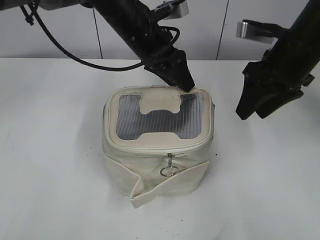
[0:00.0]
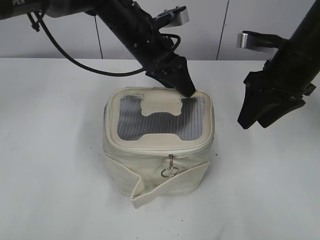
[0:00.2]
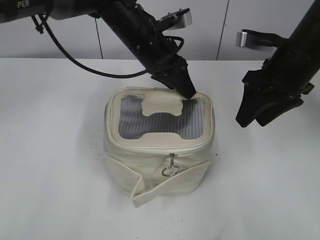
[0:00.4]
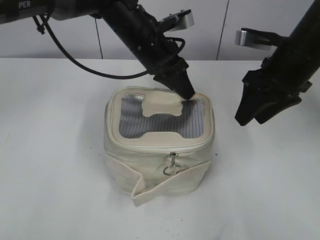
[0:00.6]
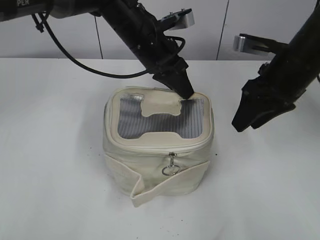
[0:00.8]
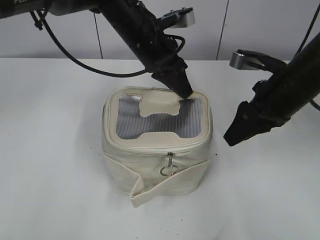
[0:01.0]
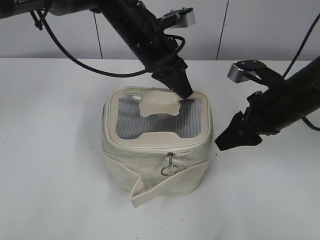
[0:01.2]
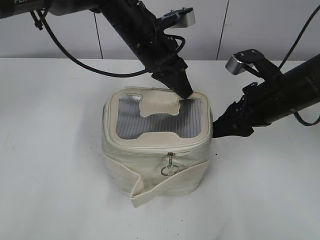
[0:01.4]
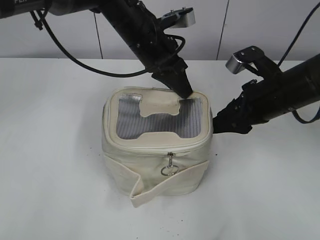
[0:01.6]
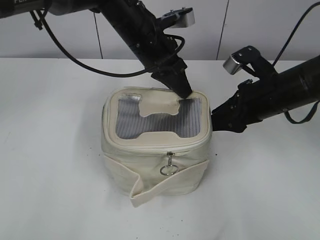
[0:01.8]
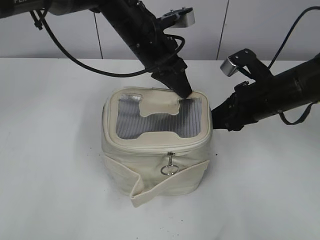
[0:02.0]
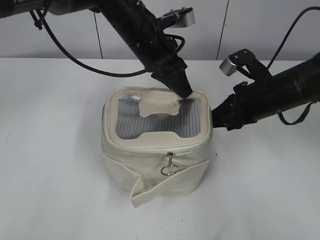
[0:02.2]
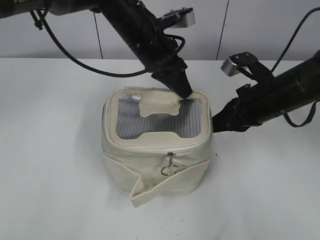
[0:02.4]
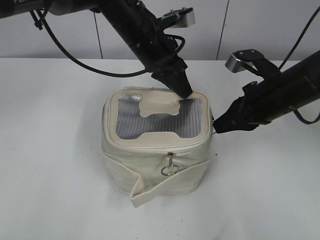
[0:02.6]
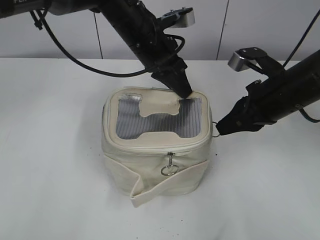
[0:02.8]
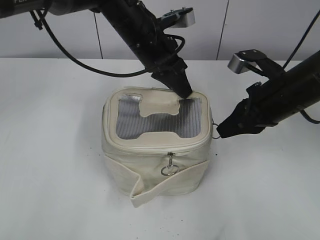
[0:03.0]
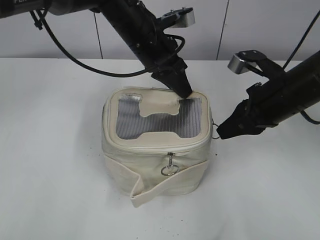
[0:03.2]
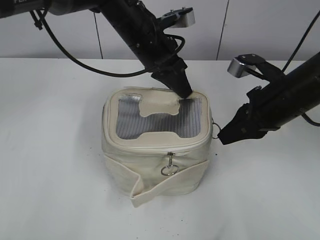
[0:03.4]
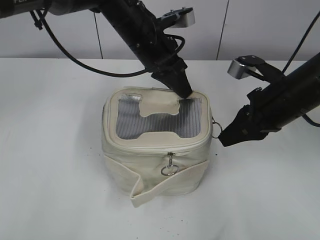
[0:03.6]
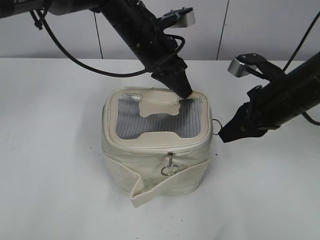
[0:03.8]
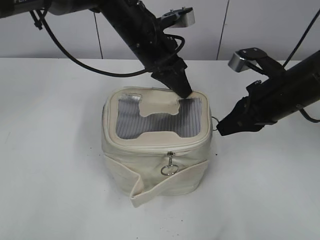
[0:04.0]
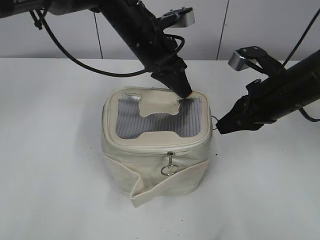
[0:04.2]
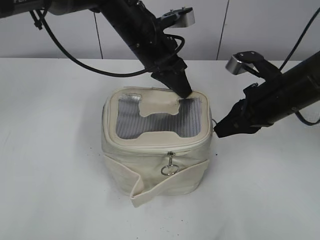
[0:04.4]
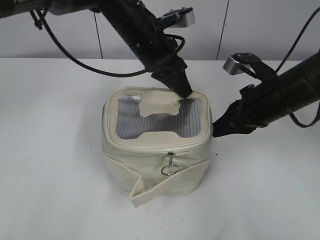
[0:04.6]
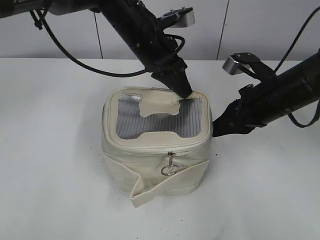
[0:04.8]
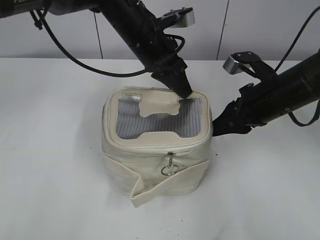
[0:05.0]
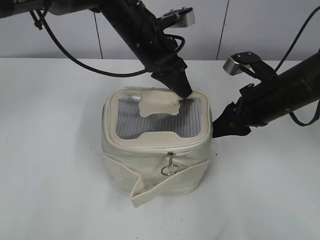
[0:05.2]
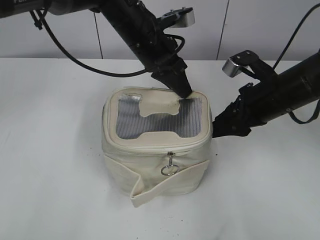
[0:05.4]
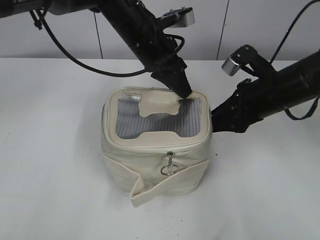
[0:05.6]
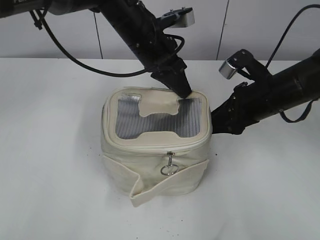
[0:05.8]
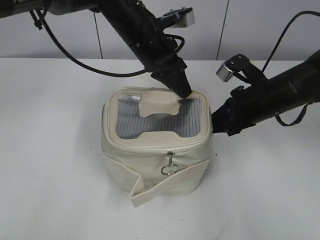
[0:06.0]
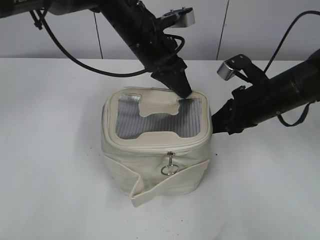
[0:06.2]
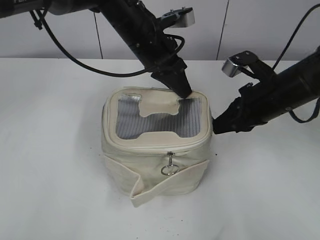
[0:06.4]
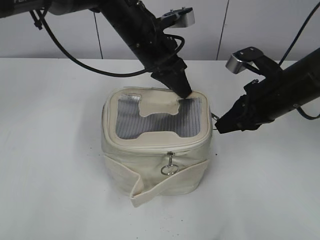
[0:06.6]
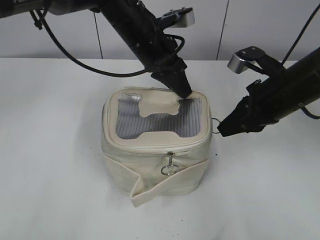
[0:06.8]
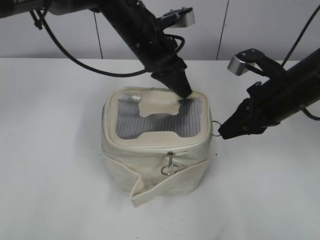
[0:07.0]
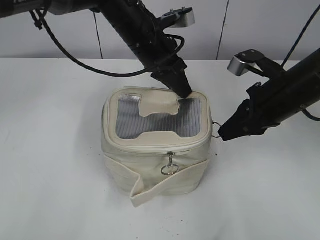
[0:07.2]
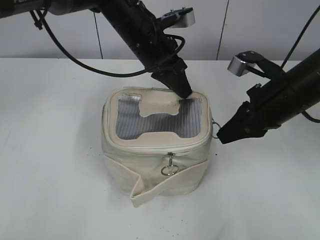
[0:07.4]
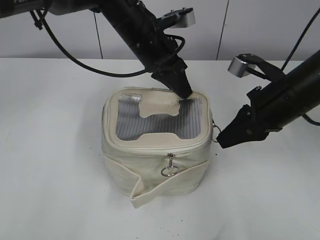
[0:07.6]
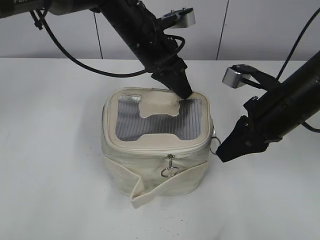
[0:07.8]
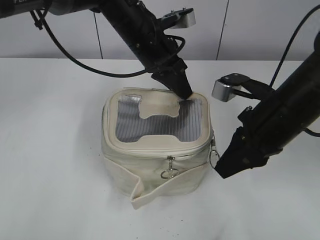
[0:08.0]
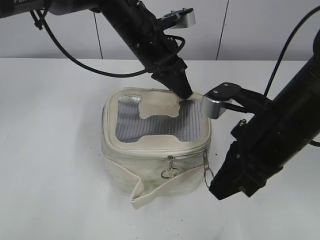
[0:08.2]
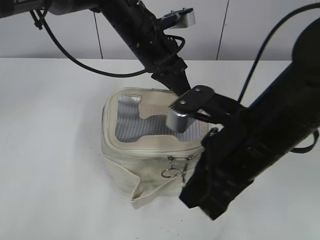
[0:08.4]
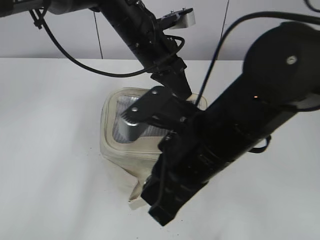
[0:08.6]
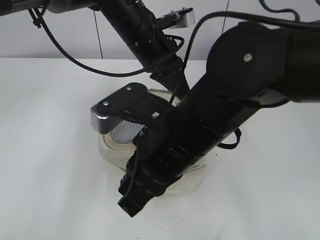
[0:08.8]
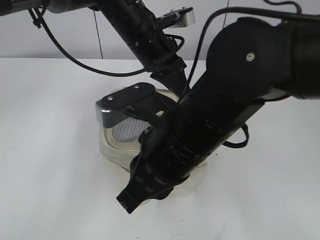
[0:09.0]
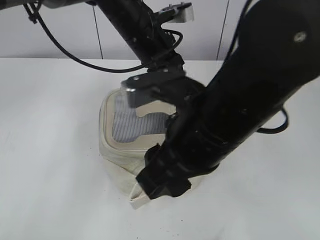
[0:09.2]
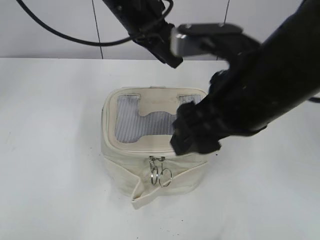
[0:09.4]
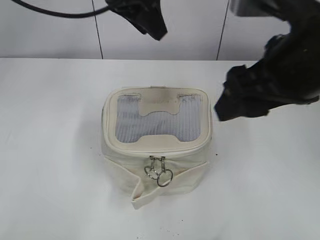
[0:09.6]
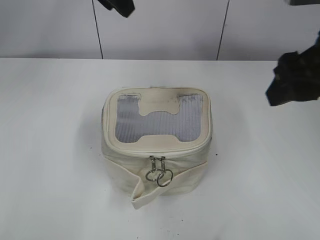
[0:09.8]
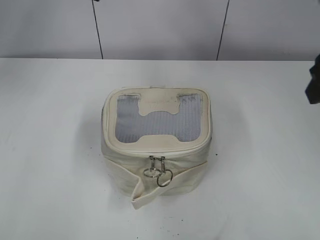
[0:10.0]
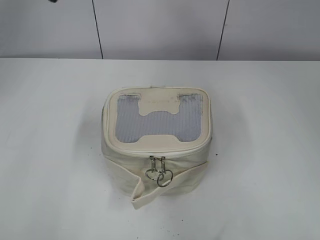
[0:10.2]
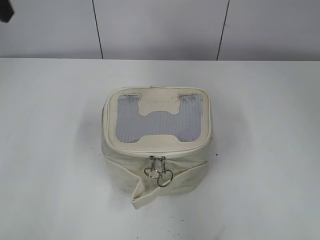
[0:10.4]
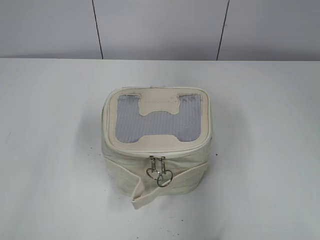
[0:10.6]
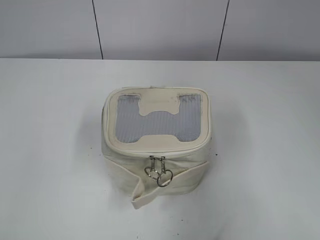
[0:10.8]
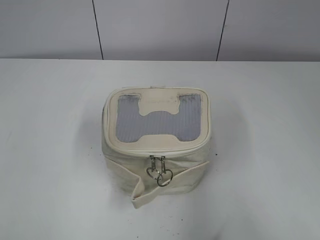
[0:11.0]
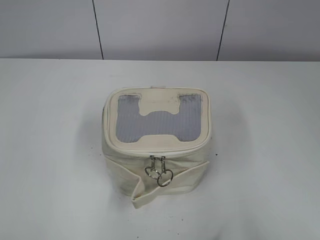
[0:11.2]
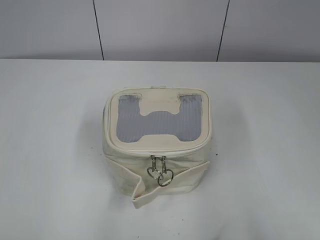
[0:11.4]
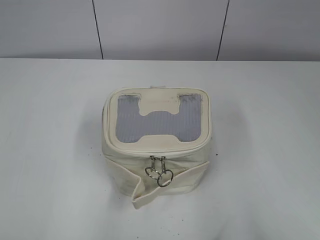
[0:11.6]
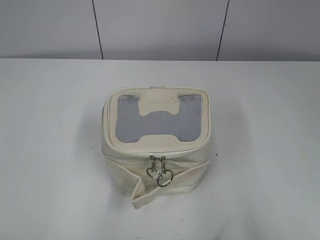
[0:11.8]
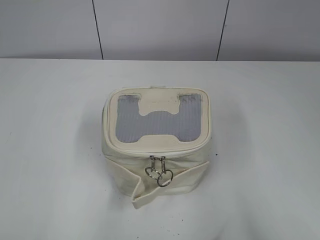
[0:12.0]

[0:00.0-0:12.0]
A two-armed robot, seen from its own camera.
Step, 0:00.0 to 0:09.0: Zip up the bag with your right hand.
0:00.0 to 0:01.6: The left gripper closes, while the right gripper moves downward, about 5 cm.
0:01.6 to 0:03.0: The right gripper closes up.
0:03.0 to 0:04.4: Both grippers stay put.
0:04.4 to 0:06.0: The right gripper opens up.
0:06.0 to 0:07.6: The right gripper ends up about 5 cm from where it was, and closes up.
0:07.6 to 0:09.0: The right gripper travels to the left and backward by roughly 20 cm.
0:09.0 to 0:10.4: The right gripper shifts about 25 cm to the right and upward, and opens; the left gripper goes approximately 25 cm to the left and upward, and opens up.
0:10.4 to 0:12.0: The right gripper shifts approximately 20 cm backward. The left gripper shifts approximately 35 cm backward.

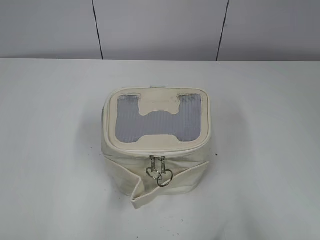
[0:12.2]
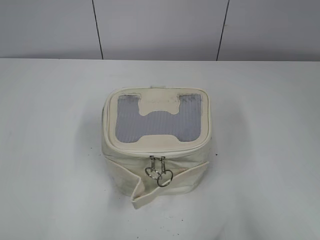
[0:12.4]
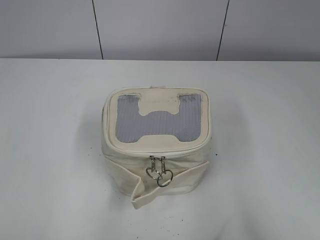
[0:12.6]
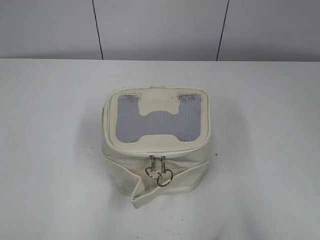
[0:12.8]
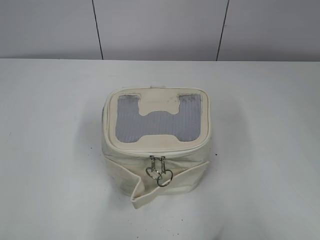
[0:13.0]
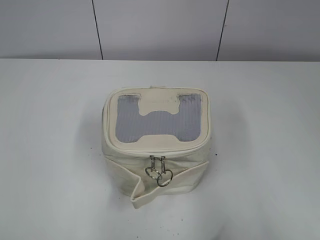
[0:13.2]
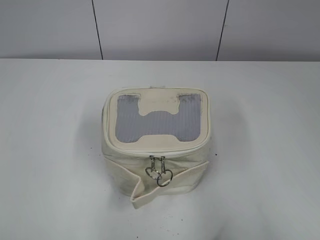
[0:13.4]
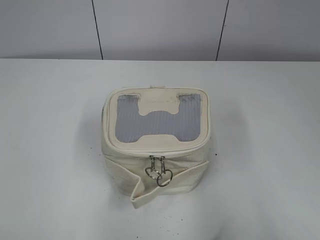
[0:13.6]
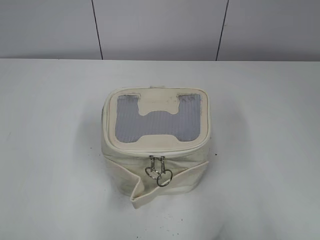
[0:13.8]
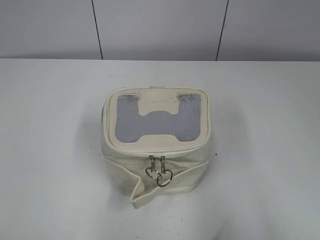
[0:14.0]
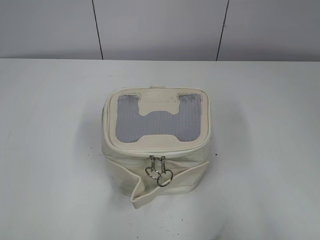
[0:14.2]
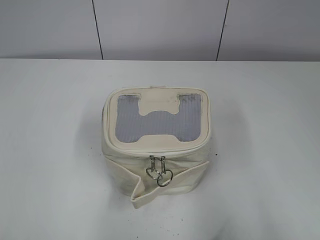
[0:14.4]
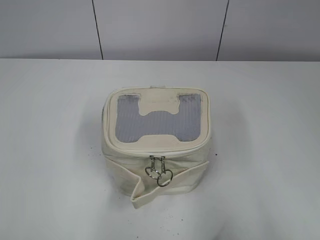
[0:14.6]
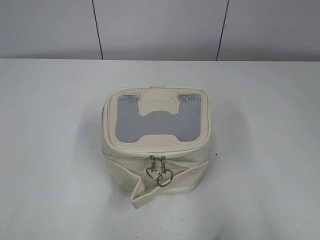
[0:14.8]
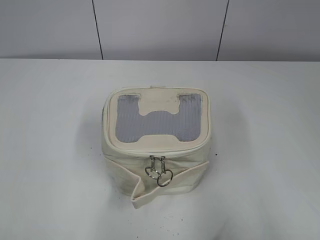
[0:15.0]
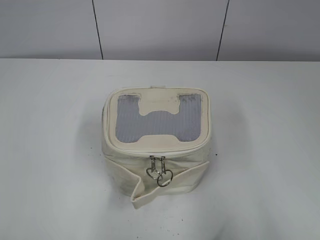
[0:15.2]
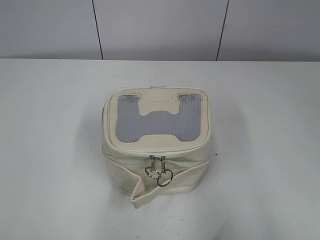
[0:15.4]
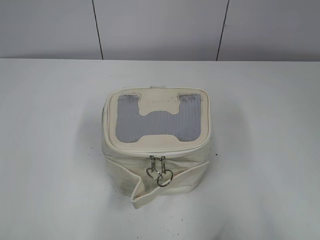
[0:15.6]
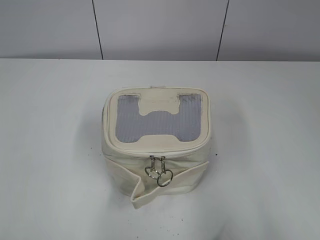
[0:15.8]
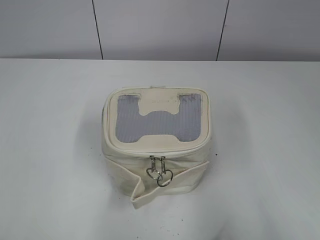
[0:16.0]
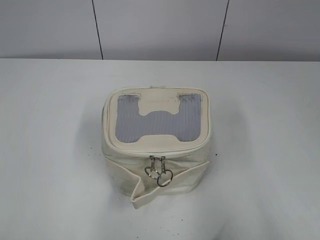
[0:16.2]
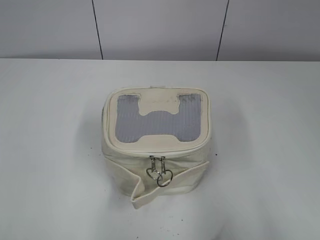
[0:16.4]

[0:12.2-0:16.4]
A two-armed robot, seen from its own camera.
0:13.6 to 0:16.4: The two grippers keep their place.
